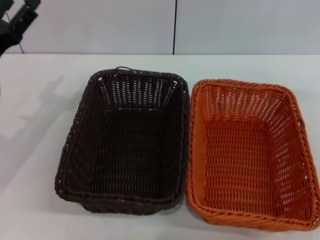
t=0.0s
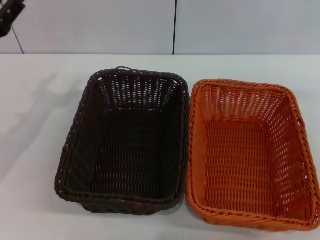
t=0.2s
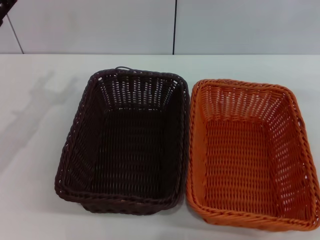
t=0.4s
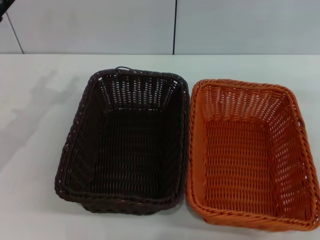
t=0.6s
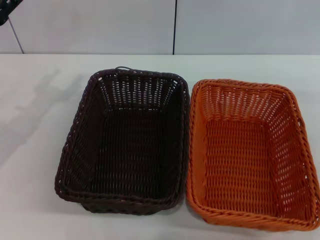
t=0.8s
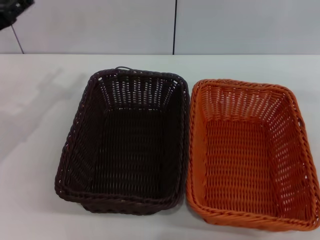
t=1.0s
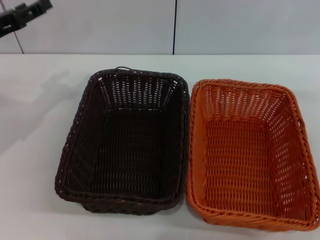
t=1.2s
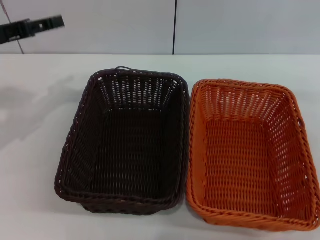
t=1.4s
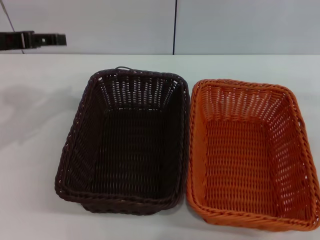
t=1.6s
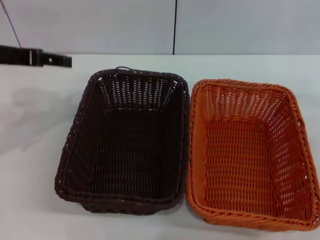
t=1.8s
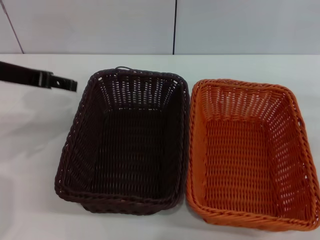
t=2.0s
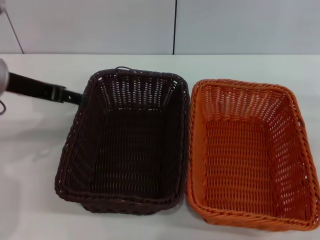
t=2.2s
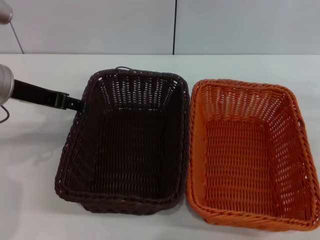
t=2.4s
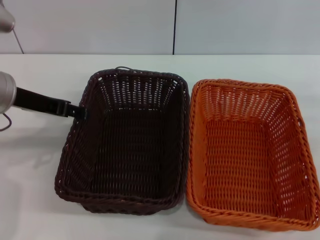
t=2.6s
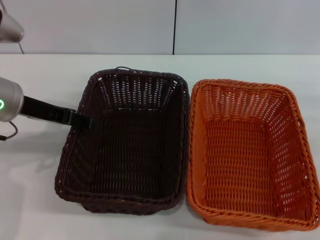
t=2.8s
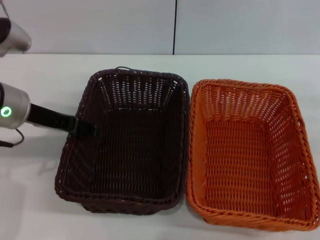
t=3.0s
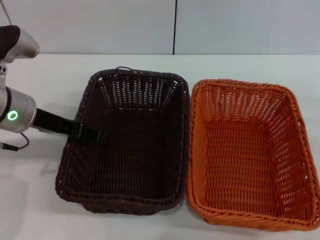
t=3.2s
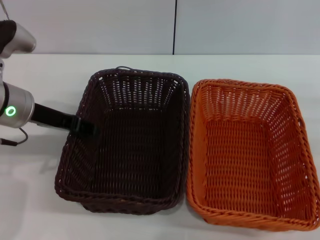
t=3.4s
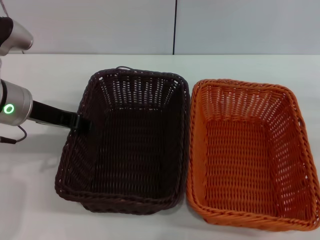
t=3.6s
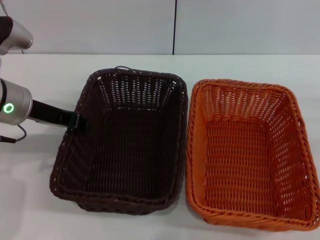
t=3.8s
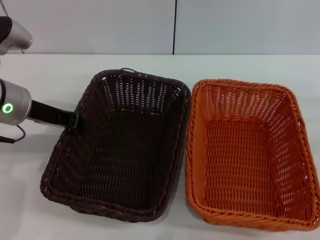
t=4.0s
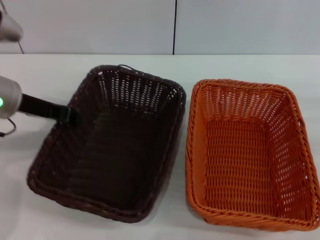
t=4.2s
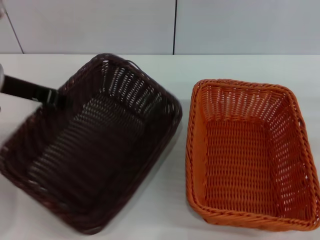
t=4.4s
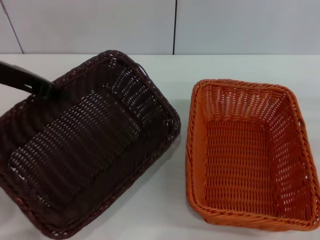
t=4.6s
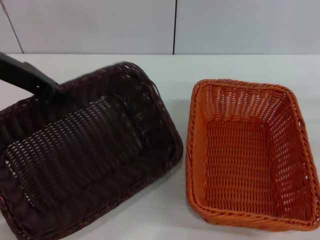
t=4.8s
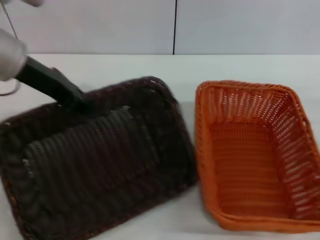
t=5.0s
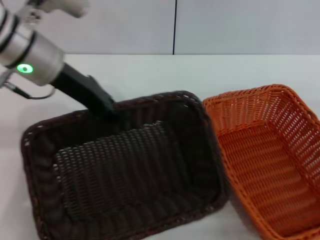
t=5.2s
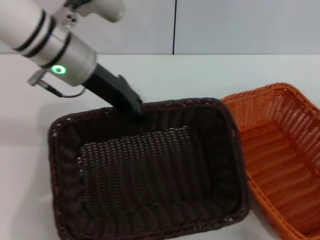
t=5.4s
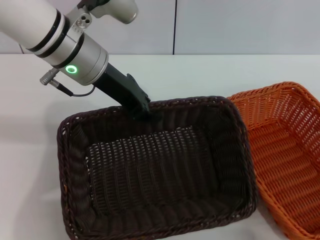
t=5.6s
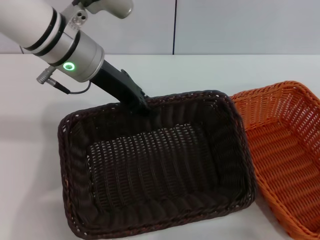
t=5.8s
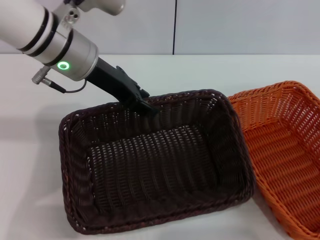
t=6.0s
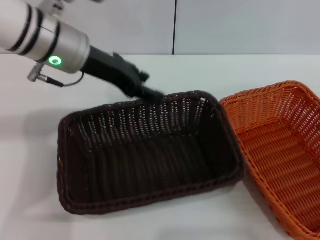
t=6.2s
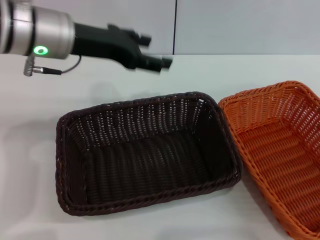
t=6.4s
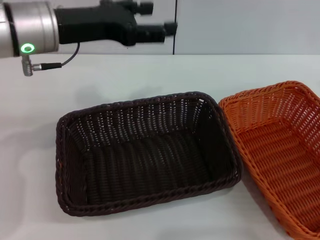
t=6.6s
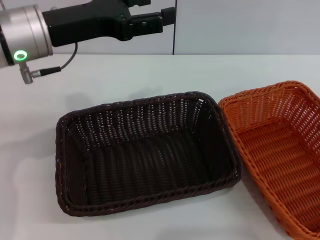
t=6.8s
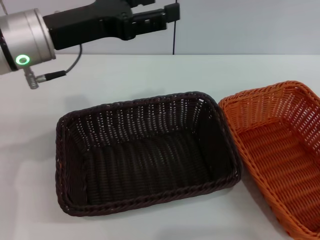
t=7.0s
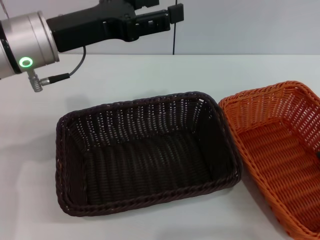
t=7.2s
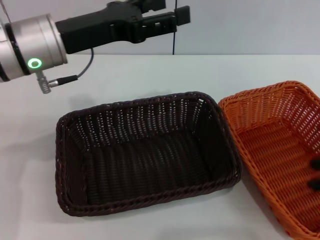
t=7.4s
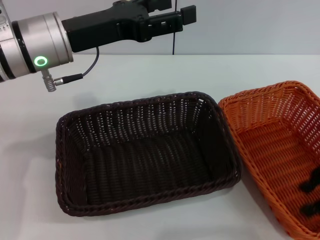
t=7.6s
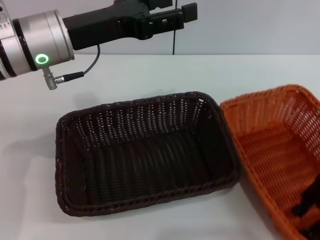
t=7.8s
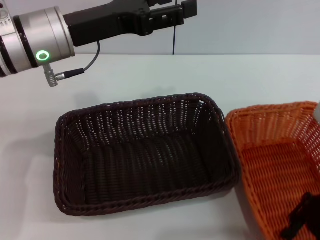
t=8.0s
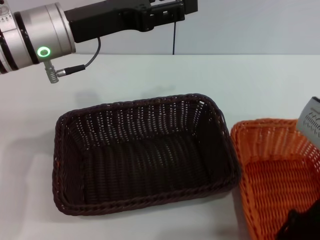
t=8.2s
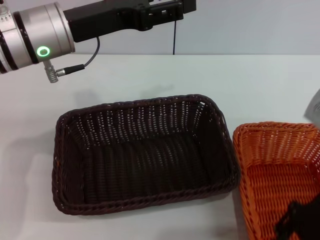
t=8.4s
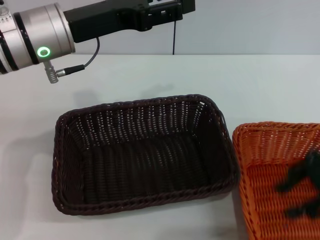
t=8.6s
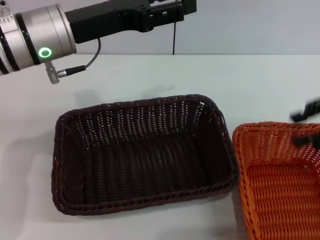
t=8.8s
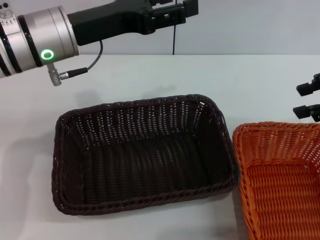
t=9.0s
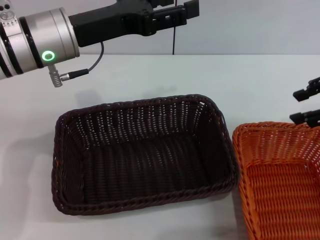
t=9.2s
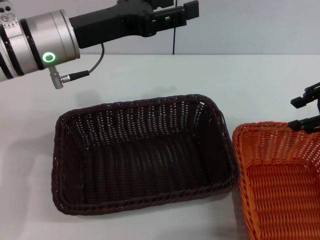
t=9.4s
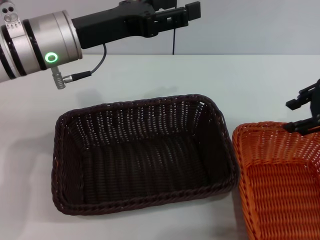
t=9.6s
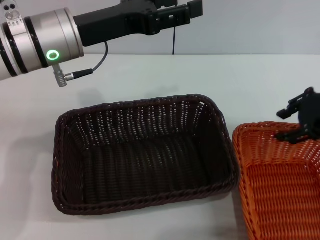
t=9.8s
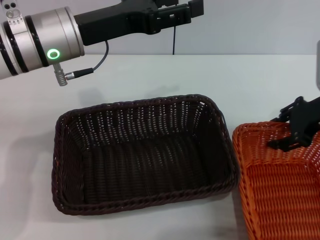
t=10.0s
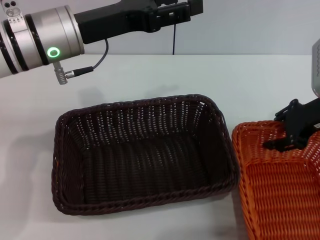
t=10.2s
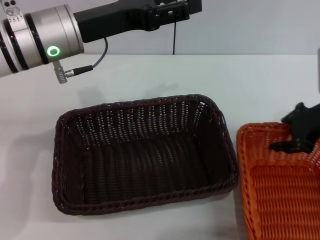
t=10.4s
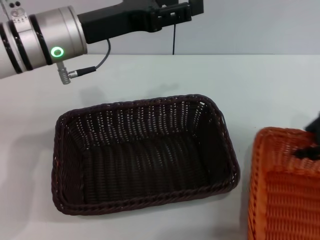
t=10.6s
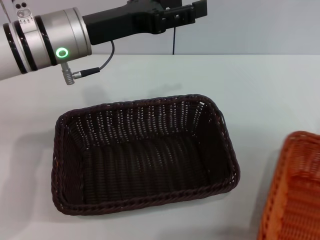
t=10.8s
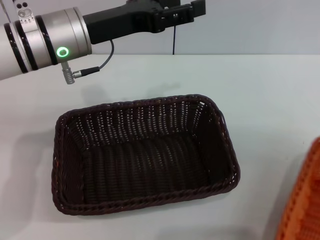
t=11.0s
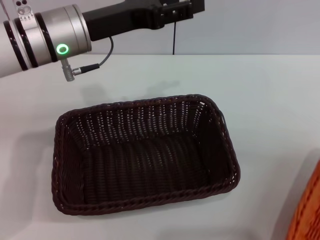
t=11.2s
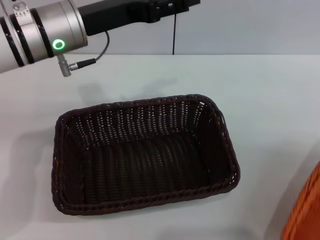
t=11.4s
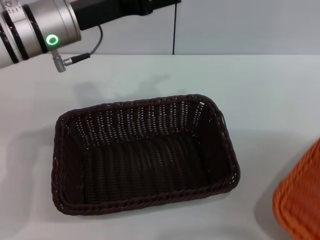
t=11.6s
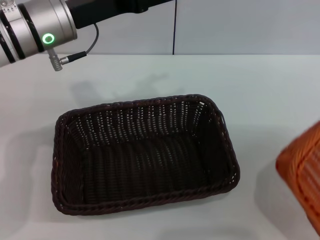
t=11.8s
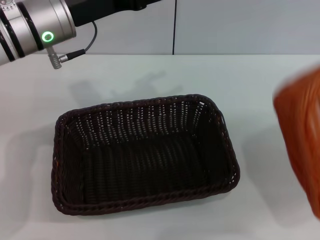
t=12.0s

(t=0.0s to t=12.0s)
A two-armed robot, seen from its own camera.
Step, t=0.0s - t=4.4s: Pick up the dark basket with the left gripper.
Step, t=4.6s - t=6.2s: Place the dark basket in the center of view with the left gripper.
Step, t=6.4s - t=11.2s: Pick up the light basket with the right gripper.
t=0.0s - t=1.6s: The left gripper moves upward, about 10 cm.
t=1.6s - t=3.0s: The left gripper shifts approximately 10 cm to the right and downward.
t=3.0s - t=4.4s: The left gripper closes its fingers.
t=4.4s - t=6.0s: The left gripper moves to the right, about 10 cm.
t=6.0s - t=7.6s: The right gripper goes approximately 15 cm to the left and upward, while the left gripper ends up approximately 5 cm from where it was, and opens.
t=7.6s - t=9.0s: The right gripper heads upward, covering some 5 cm, and reaches some 5 cm to the left, then returns.
t=9.0s - t=10.4s: The right gripper travels downward by some 10 cm.
t=10.4s - t=12.0s: The right gripper moves to the right and backward, about 25 cm, and closes.

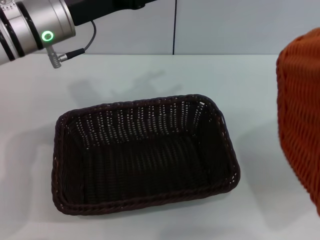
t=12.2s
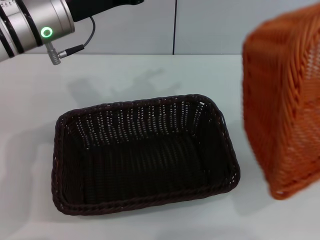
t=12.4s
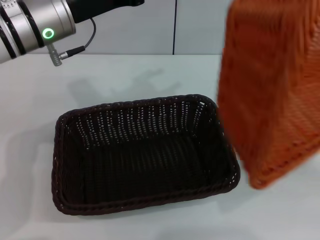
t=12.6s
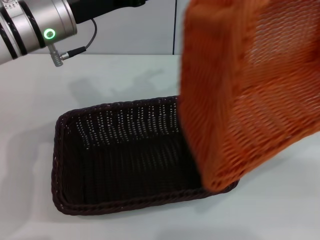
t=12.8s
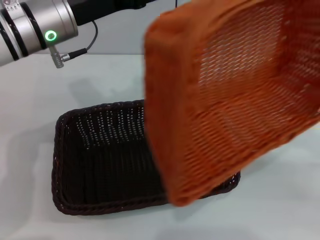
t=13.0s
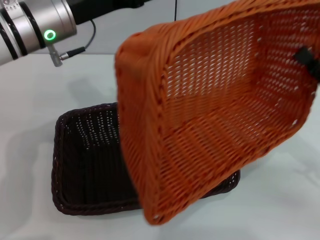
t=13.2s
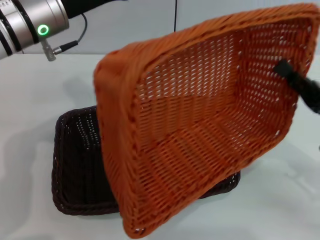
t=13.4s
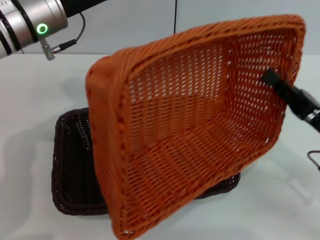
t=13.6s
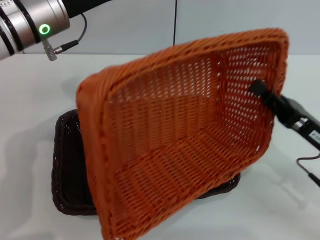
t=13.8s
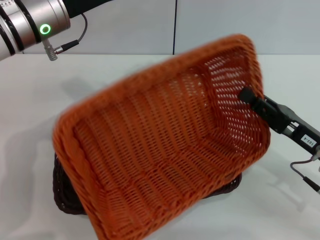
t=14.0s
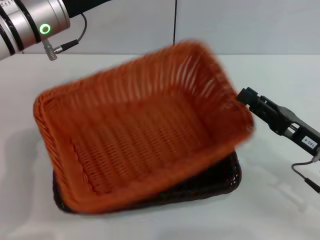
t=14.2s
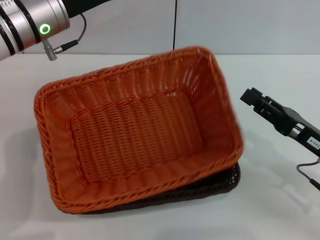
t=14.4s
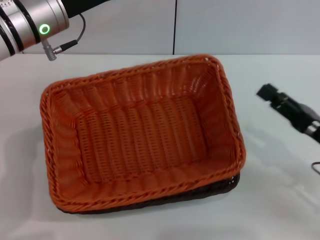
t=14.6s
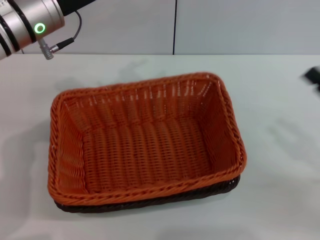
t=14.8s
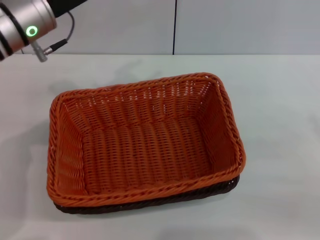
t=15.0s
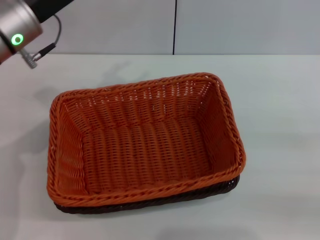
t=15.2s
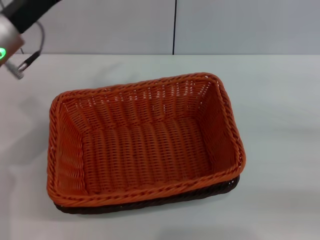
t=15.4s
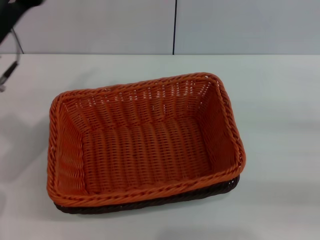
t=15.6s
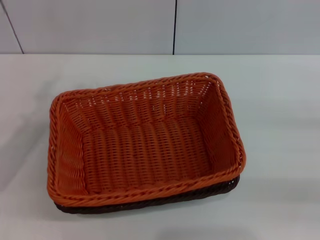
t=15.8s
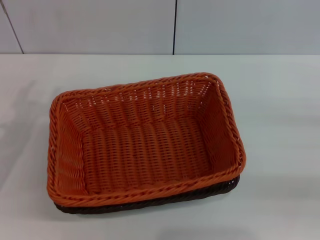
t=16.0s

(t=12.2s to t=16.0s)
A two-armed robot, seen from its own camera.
Step, t=12.2s - t=14.6s: Place the light basket on the dark basket with the right gripper.
t=12.2s - t=13.4s: The right gripper heads to the left and downward, covering some 20 cm.
t=13.4s - t=14.8s: The right gripper opens up.
t=14.8s - t=16.0s: The right gripper heads to the right, covering some 10 cm; the left gripper travels to the left, backward and downward by roughly 15 cm.
